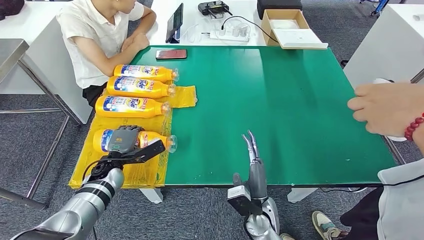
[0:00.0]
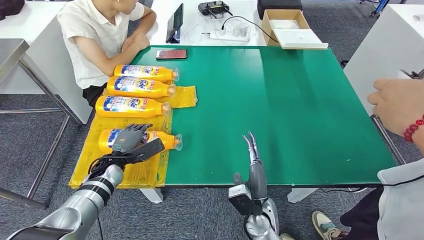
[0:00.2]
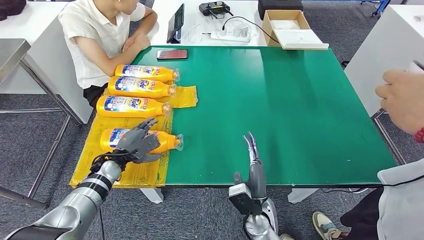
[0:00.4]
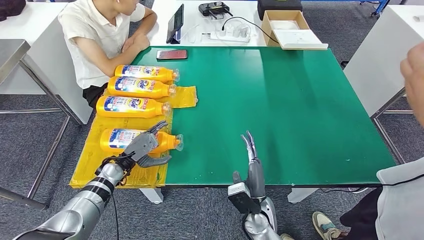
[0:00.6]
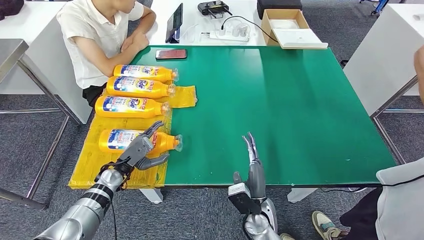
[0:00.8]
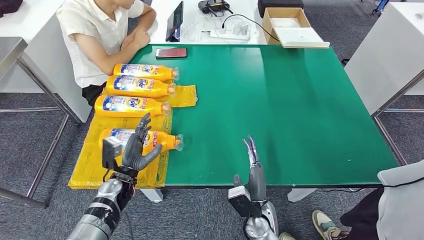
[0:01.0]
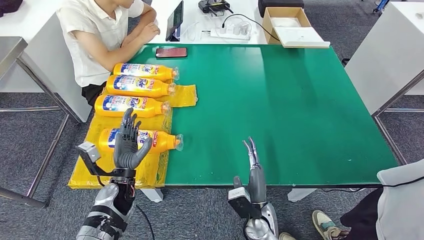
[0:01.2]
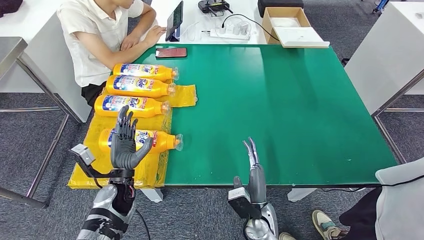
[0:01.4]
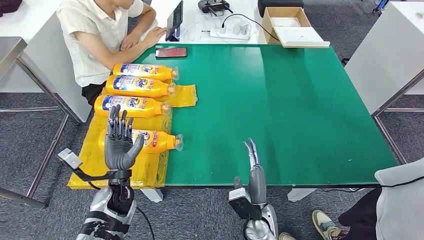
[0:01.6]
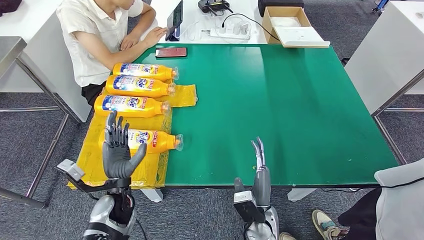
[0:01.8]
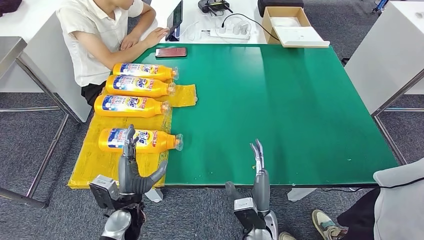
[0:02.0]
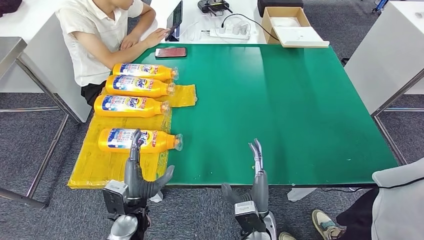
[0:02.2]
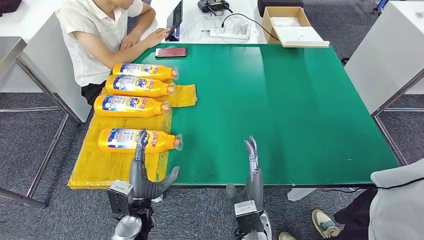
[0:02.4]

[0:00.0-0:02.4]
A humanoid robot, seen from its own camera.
Step, 0:00.0 to 0:02.4: Flip the fast-moving consumer goods bottle to the front side.
0:01.2 to 0:02.4: The right hand moves approximately 5 cm. The left hand goes about 10 cm backward and to the right.
